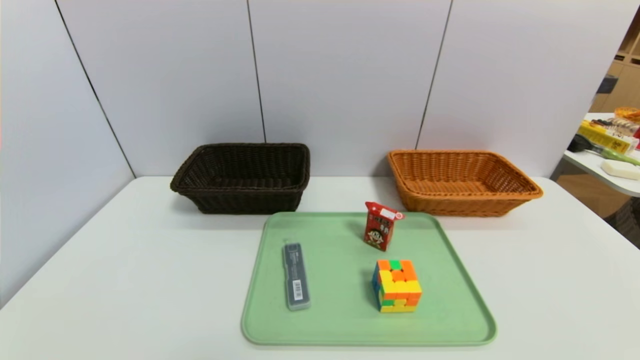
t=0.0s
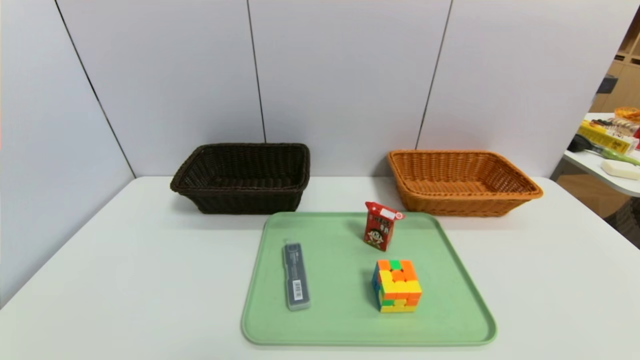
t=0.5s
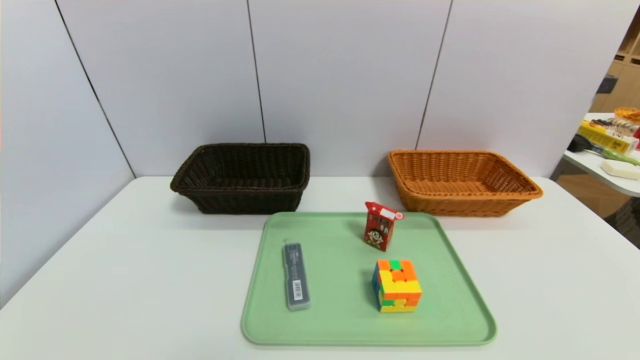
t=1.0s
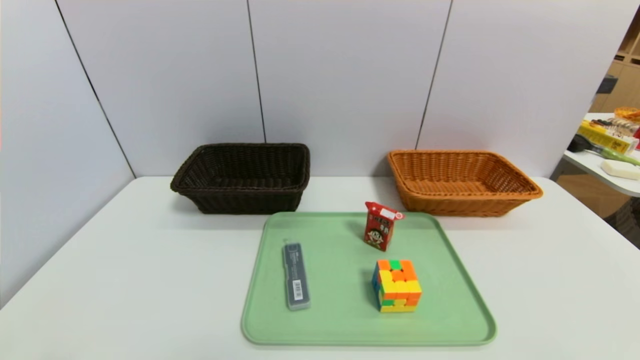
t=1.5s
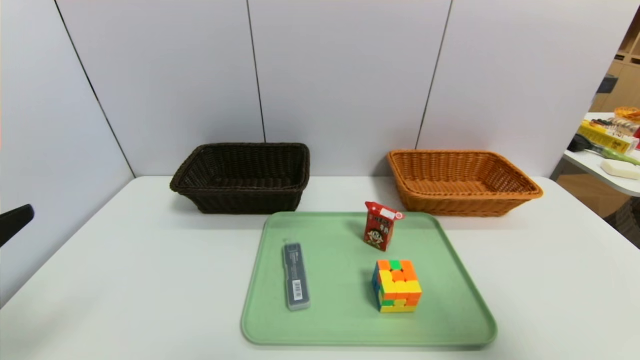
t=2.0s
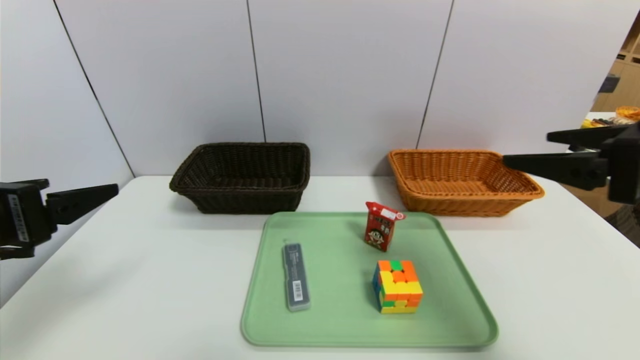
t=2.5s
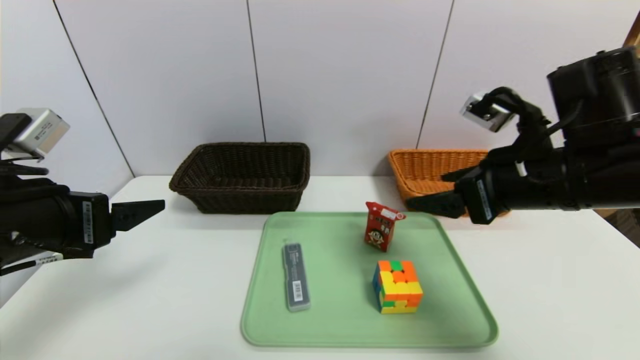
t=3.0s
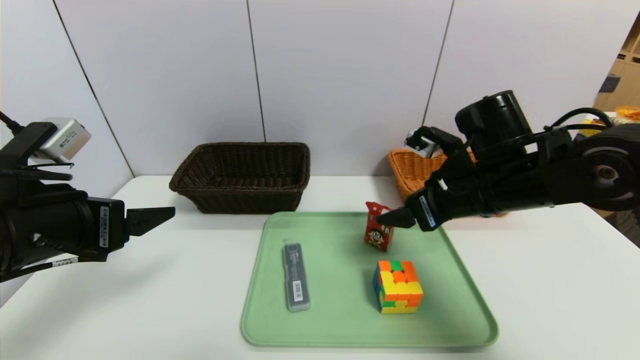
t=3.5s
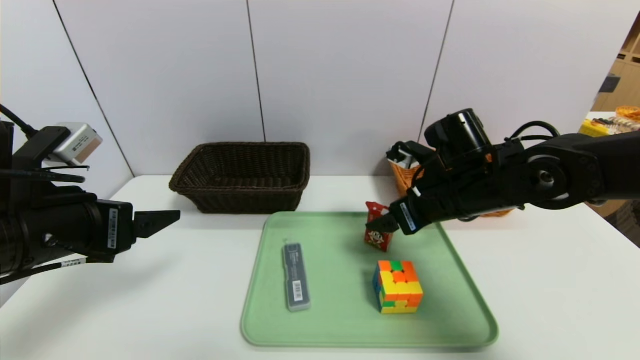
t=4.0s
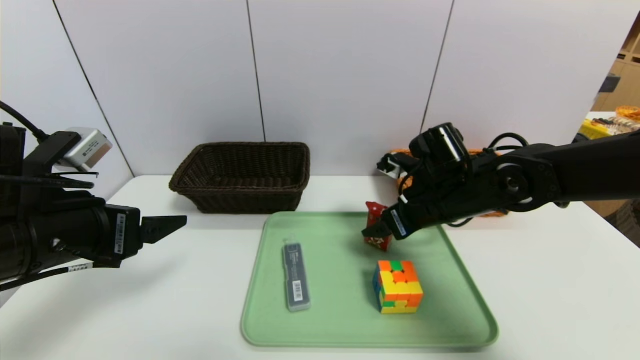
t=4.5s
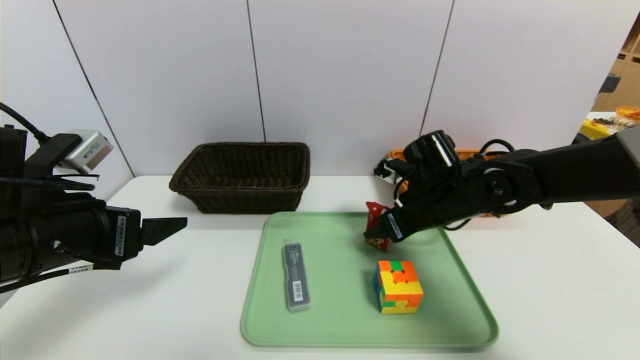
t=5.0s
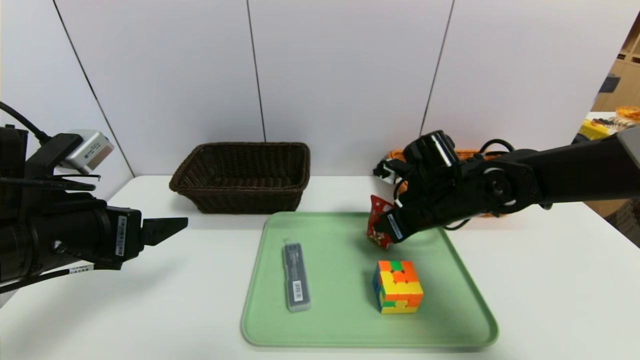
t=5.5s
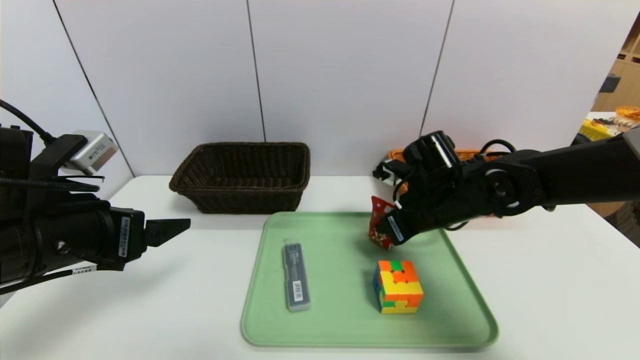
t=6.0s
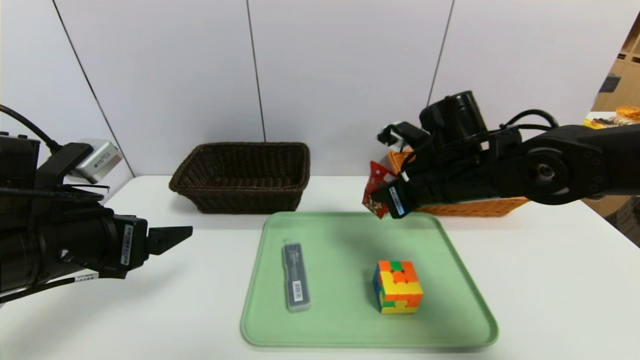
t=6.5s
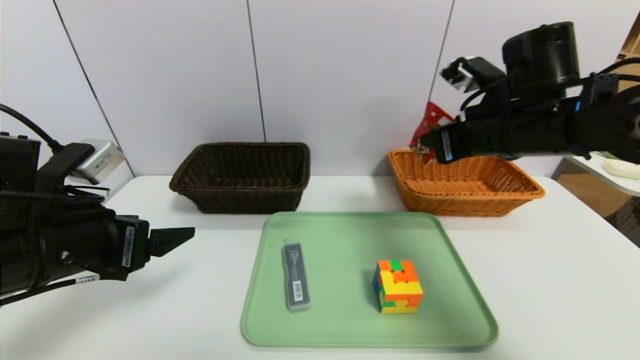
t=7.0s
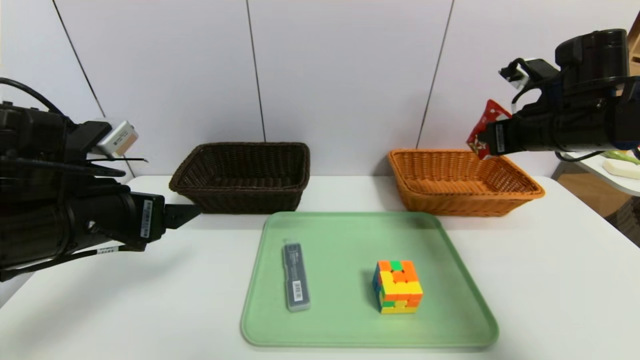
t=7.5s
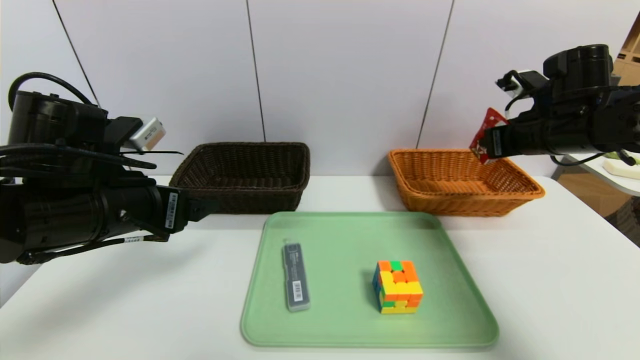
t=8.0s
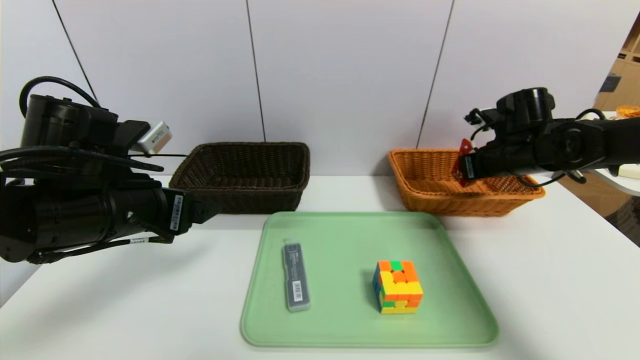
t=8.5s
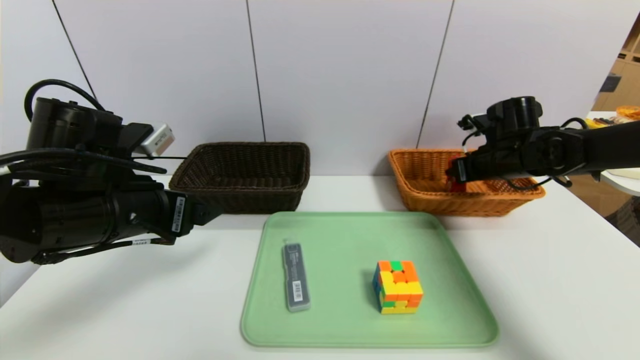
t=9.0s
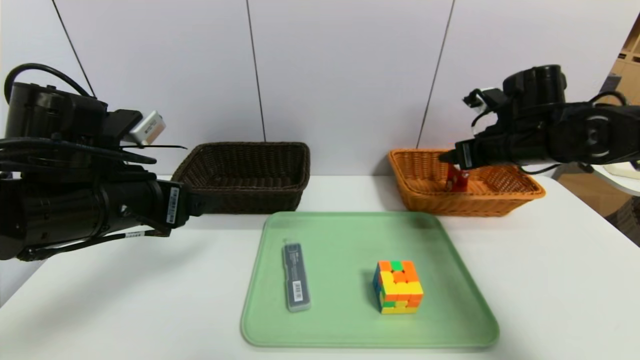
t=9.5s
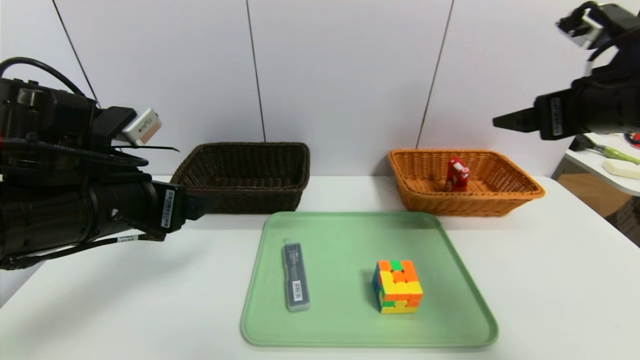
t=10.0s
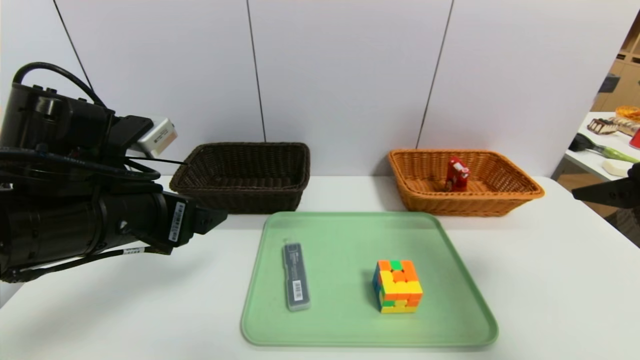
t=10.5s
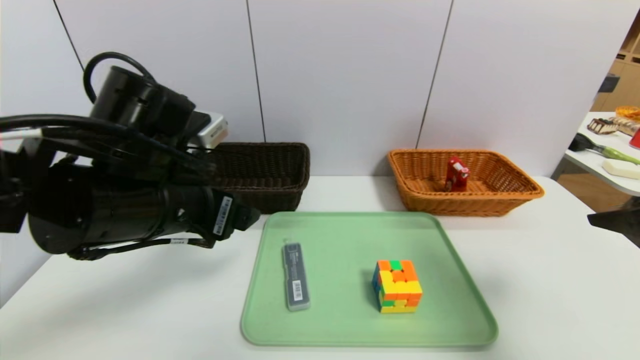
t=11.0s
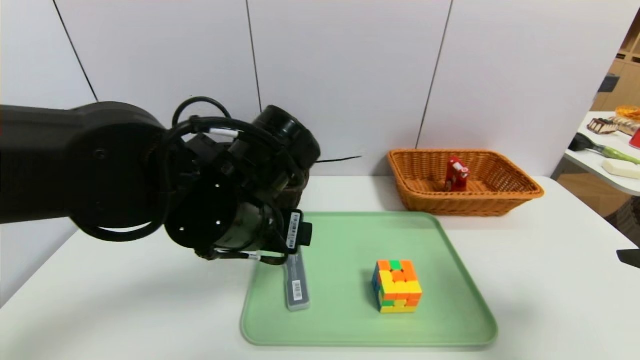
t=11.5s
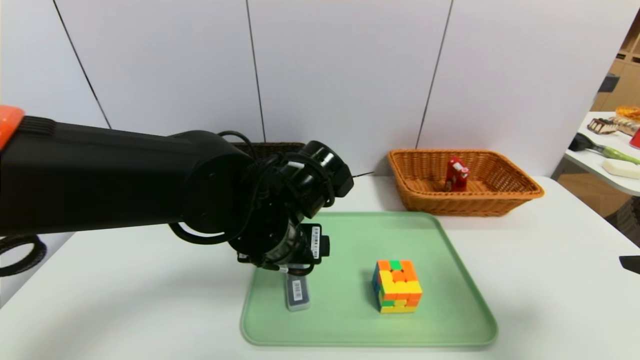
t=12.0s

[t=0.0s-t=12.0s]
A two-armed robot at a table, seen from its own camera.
Task of the whole recording: place the food in the right basket with the right gripper, and place the non food items in the left basket with the left gripper.
Step, t=0.0s to t=9.0s: Grasp the milk and put it in the right basket.
t=0.0s to t=2.0s: The left gripper moves upward and forward, roughly 20 cm. The right gripper goes roughly 25 cm upward.
t=2.0s to t=4.0s: The right gripper is displaced forward, to the left and downward by about 30 cm; the left gripper shifts some 10 cm forward.
t=4.0s to t=6.0s: The right gripper closes up.
t=6.0s to t=8.0s: The right gripper travels to the right and upward by roughly 20 cm.
t=8.0s to t=10.0s: The right gripper goes approximately 15 cm backward and upward, and opens its fingers.
t=10.0s to t=12.0s: The right gripper goes approximately 15 cm backward. Meanwhile the left gripper shifts roughly 15 cm to the right.

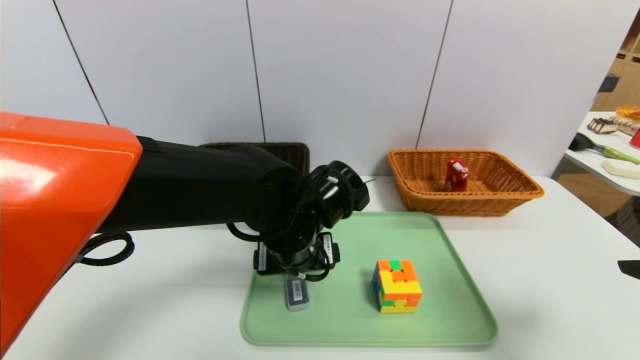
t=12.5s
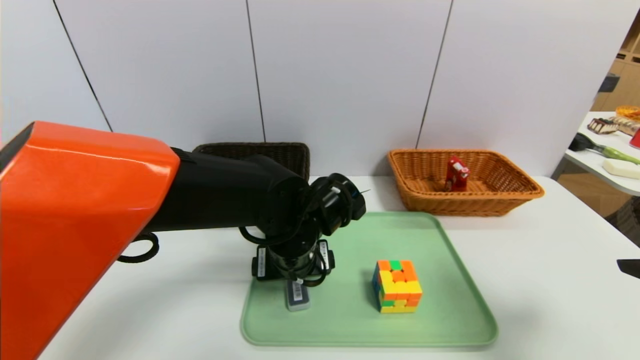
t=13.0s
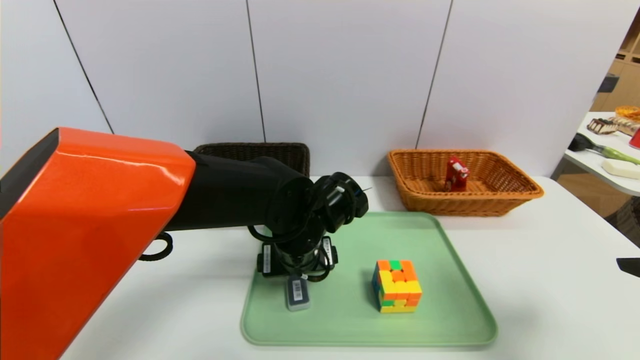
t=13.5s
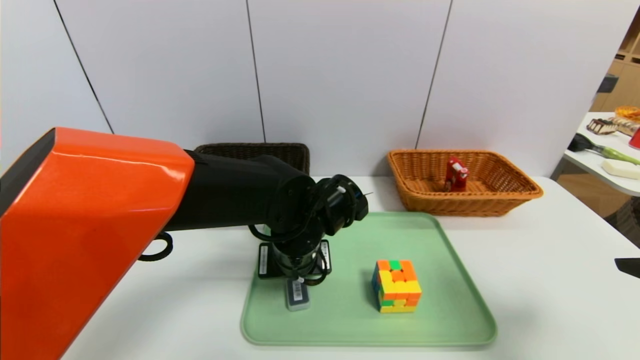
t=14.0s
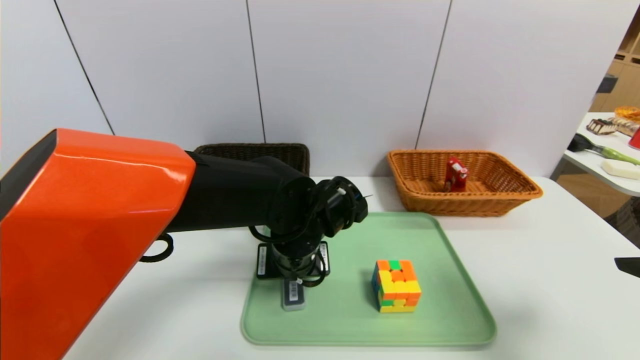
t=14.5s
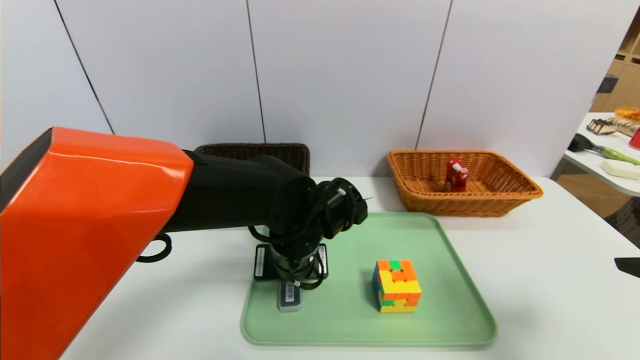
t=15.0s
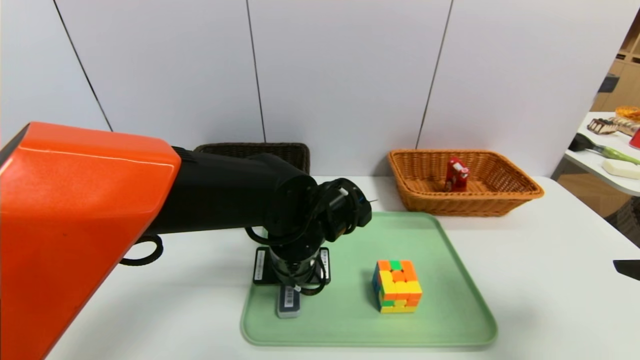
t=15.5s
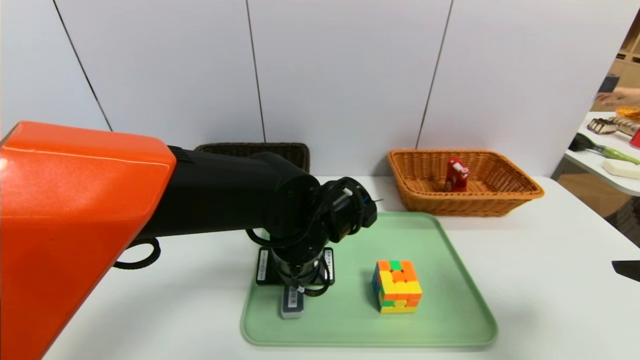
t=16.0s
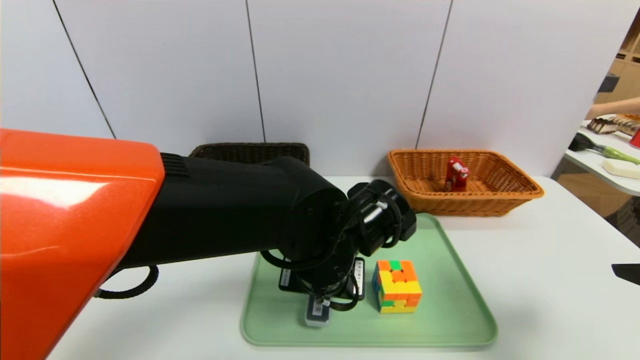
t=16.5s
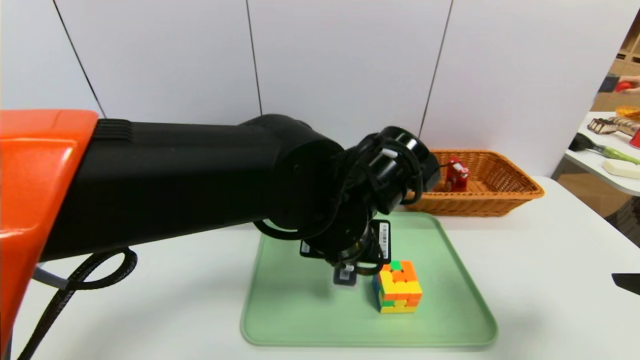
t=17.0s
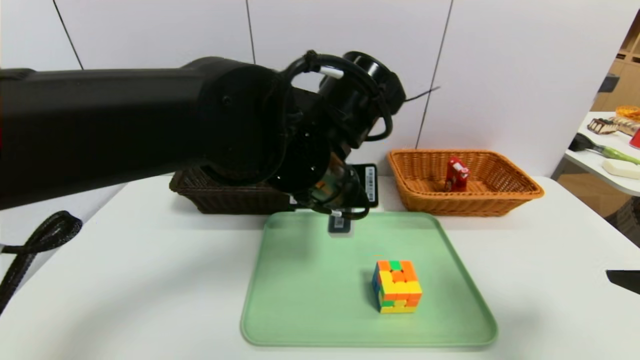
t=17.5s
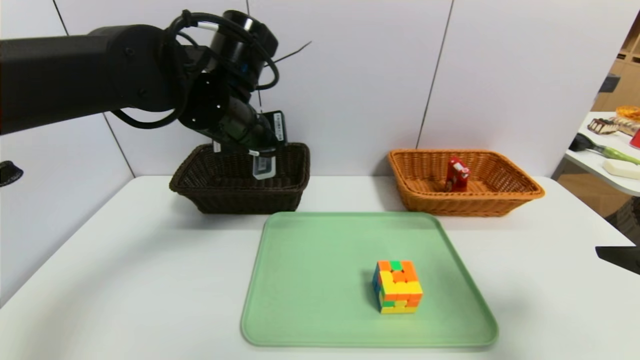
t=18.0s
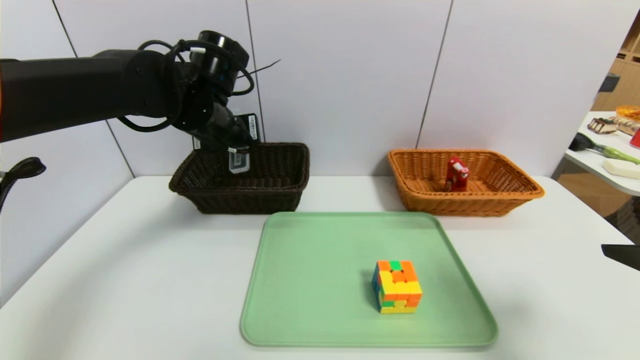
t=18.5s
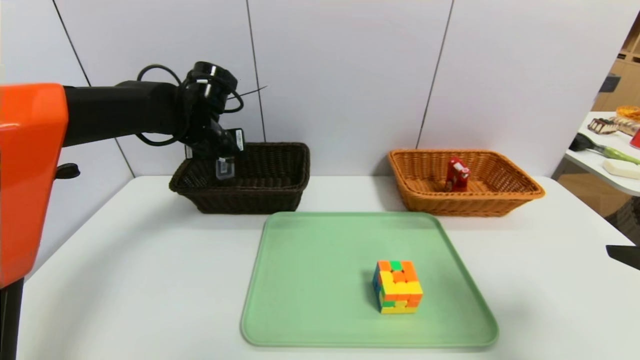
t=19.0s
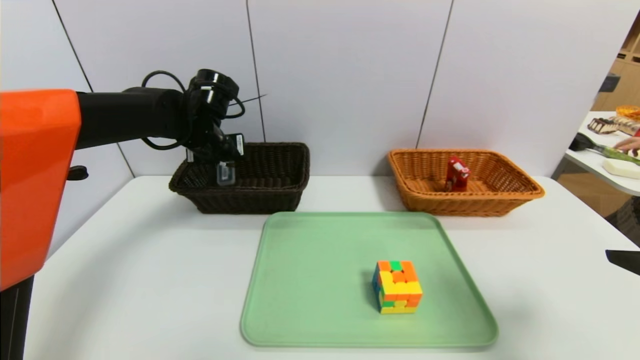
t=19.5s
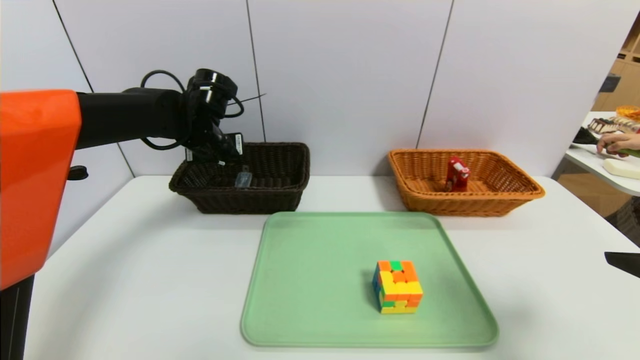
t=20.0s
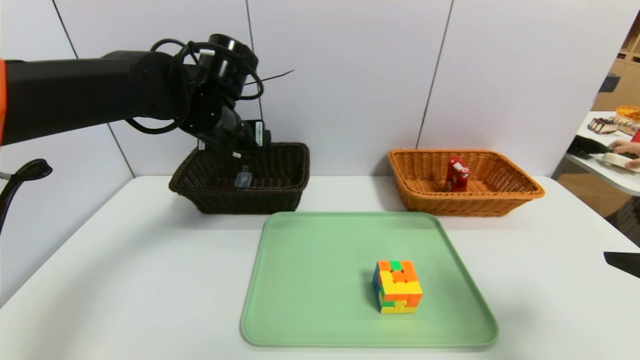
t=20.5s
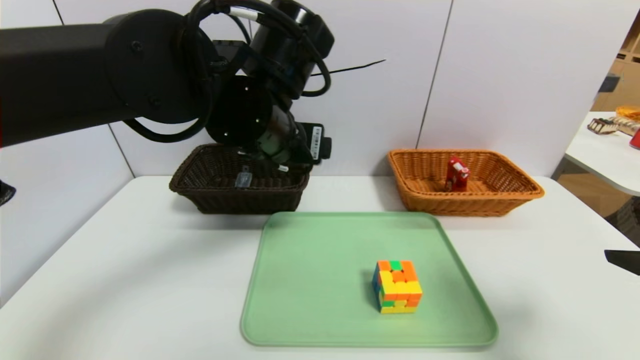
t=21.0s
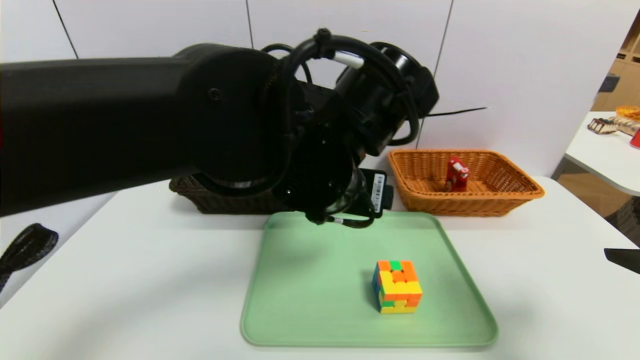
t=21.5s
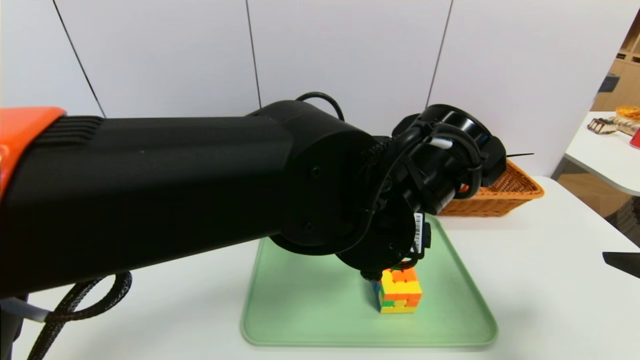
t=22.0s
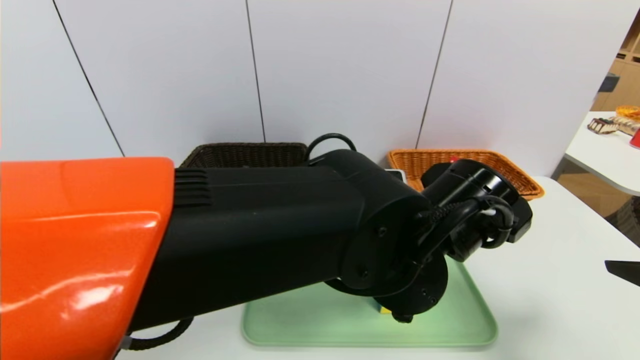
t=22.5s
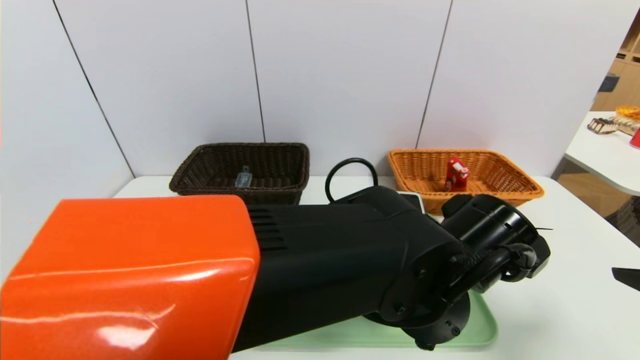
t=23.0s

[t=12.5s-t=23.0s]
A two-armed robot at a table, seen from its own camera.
Task of the whole recording: place the food in the right basket with the right gripper, and place the non food items in the left basket with the left gripper.
Step, t=12.5s to t=20.0s: Grasp the compass and put it in the left basket.
t=12.5s to t=14.5s: The left gripper closes.
t=14.5s to t=16.5s: The left gripper changes place by roughly 5 cm.
t=16.5s to t=19.0s: The left gripper goes approximately 25 cm to the left and forward.
t=19.0s to t=21.0s: The left gripper shifts some 20 cm backward, to the right and upward, and opens.
t=21.0s to t=23.0s: The left gripper travels to the right, downward and backward by about 20 cm.
